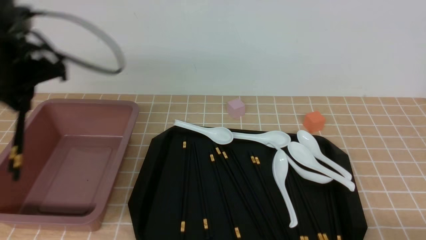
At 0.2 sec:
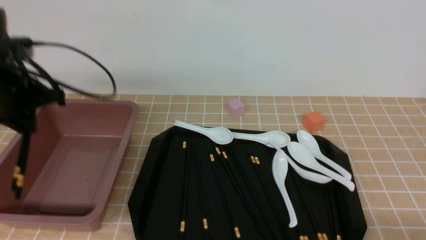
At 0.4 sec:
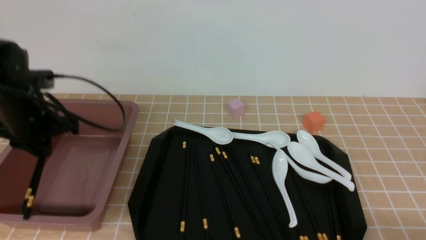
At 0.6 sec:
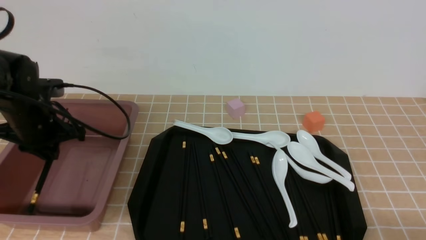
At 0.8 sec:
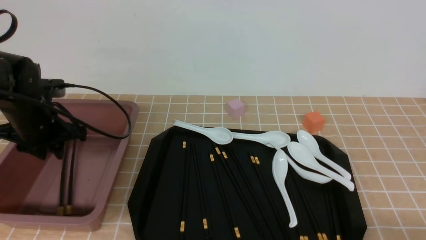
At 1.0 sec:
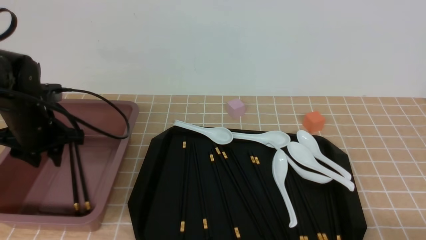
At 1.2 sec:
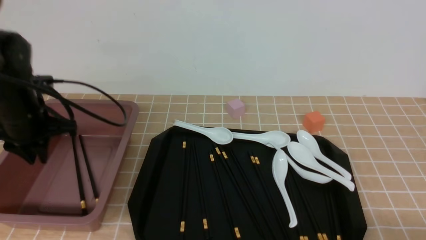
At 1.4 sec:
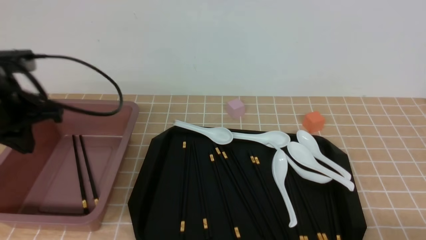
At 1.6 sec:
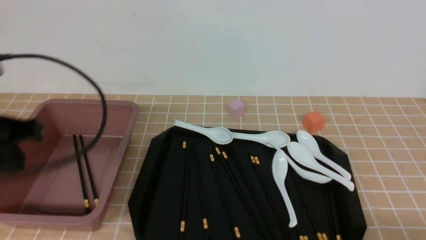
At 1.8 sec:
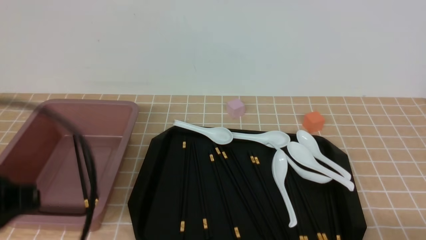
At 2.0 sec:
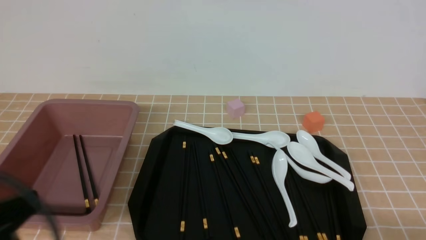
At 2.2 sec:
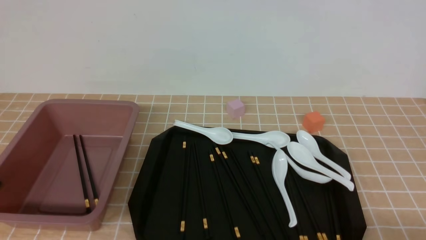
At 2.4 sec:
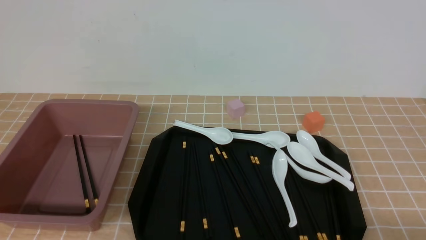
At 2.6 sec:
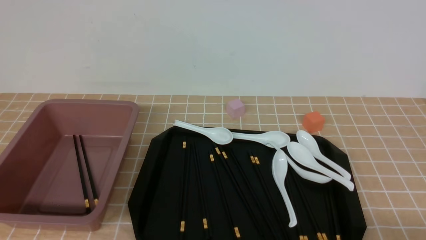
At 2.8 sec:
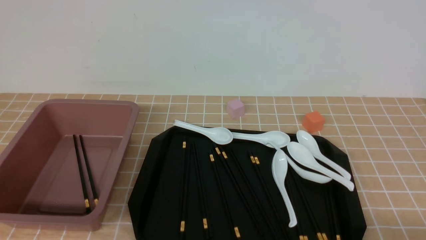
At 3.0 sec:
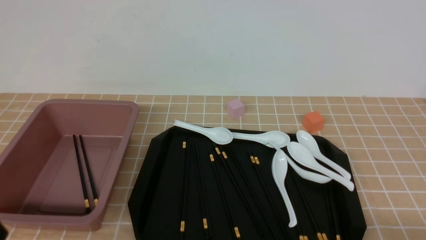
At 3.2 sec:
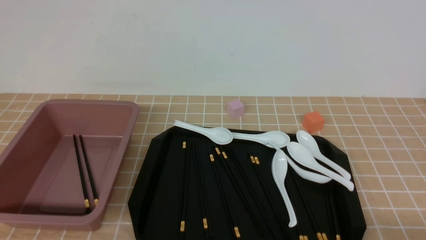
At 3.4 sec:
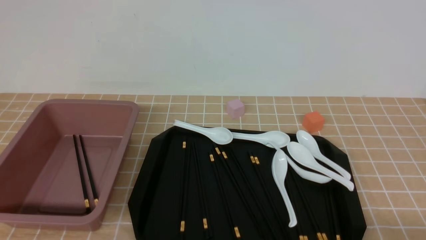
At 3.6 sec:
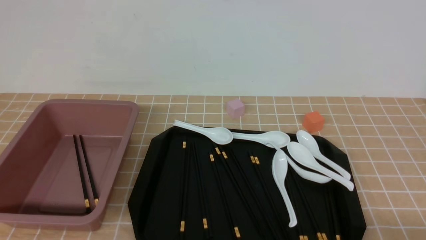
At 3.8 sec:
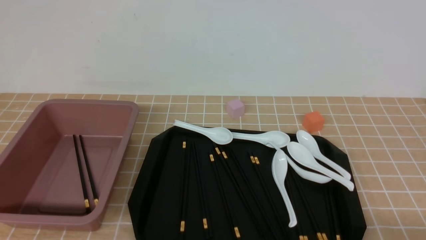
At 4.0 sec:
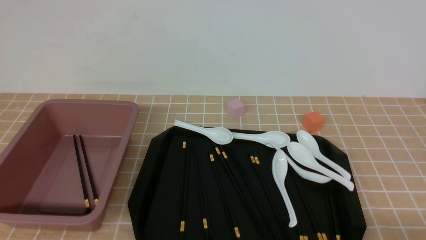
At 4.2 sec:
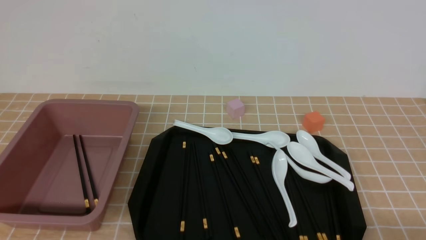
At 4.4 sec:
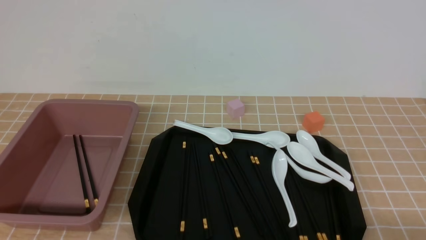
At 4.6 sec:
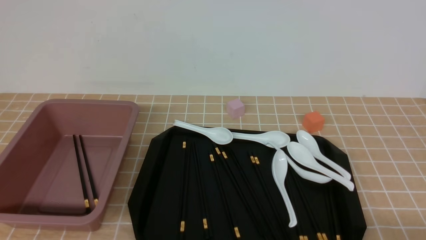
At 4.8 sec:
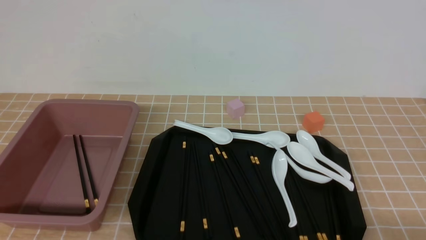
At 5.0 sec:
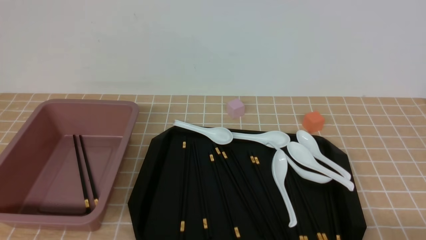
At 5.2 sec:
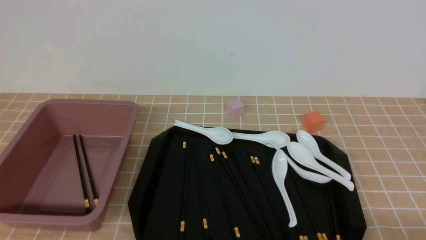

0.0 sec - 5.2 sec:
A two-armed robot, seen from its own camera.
Step, 0.0 sec - 1.2 sec: use the left arm to put the chopsticks into the lunch box.
0.0 sec - 1.8 sec: The left gripper travels backward by roughly 20 cm, and closes its fingers.
1.8 sec - 3.4 sec: The left gripper shifts roughly 15 cm downward and backward.
3.4 sec - 5.2 sec: Both grippers stay about where they are.
